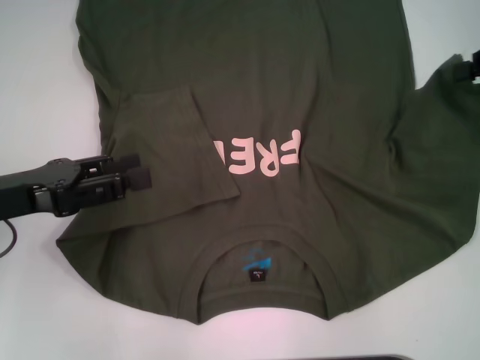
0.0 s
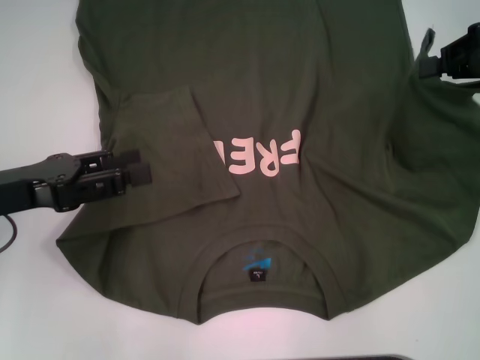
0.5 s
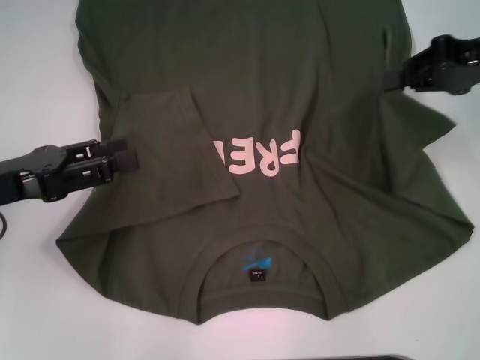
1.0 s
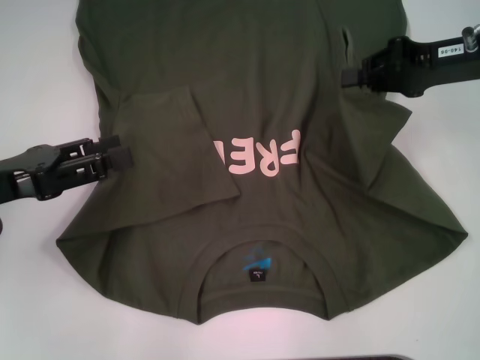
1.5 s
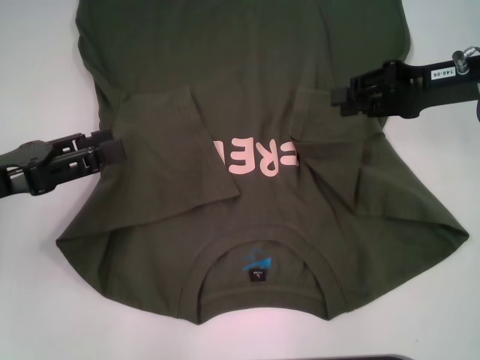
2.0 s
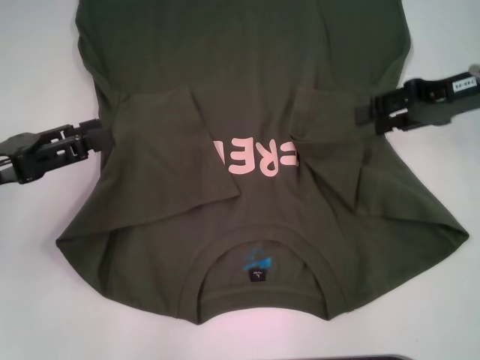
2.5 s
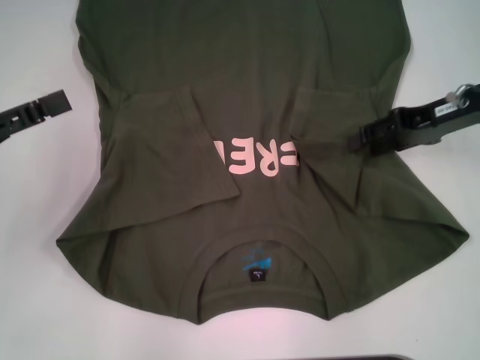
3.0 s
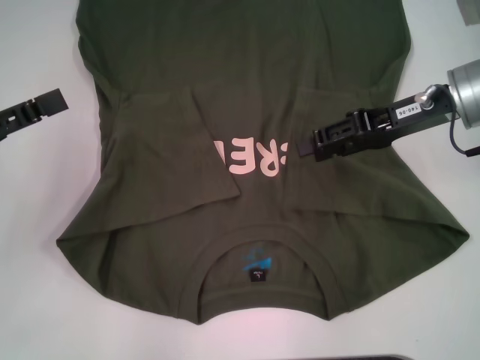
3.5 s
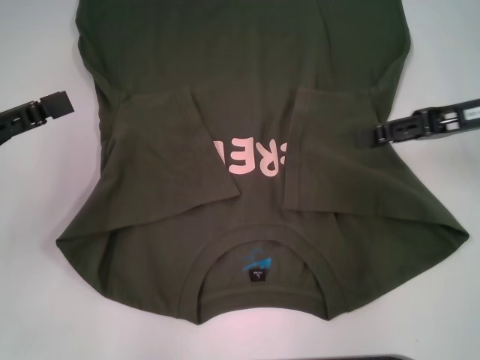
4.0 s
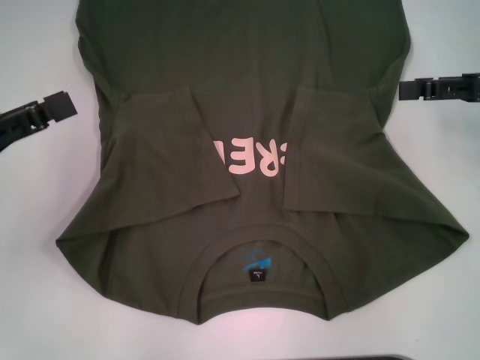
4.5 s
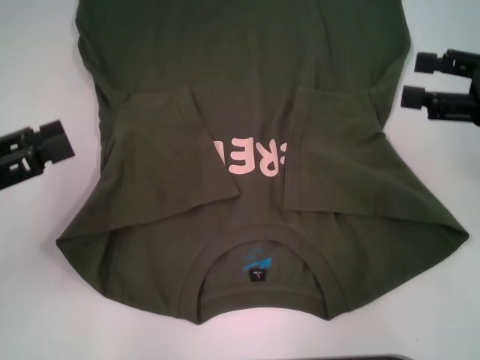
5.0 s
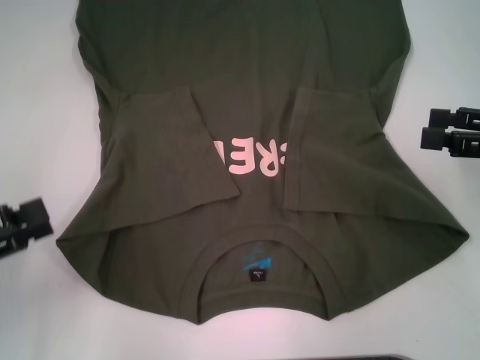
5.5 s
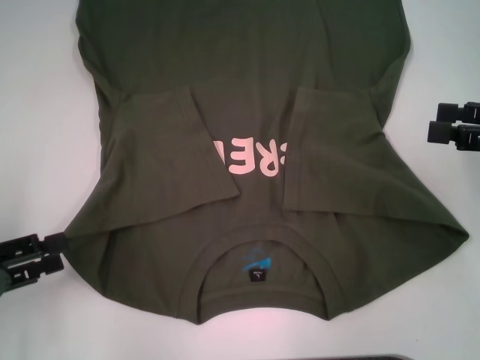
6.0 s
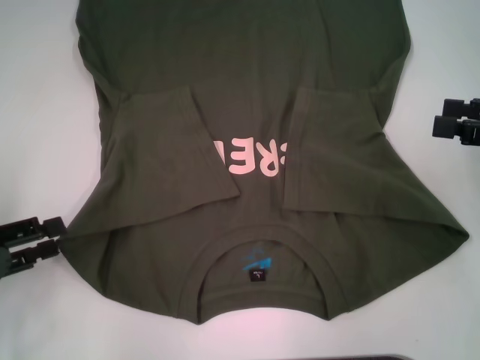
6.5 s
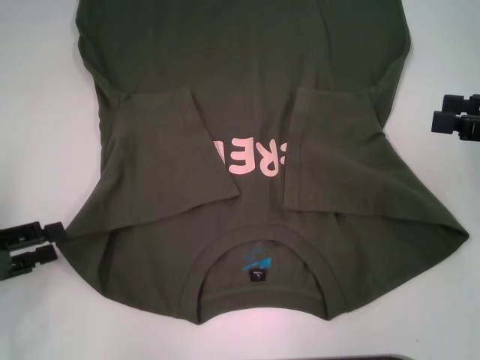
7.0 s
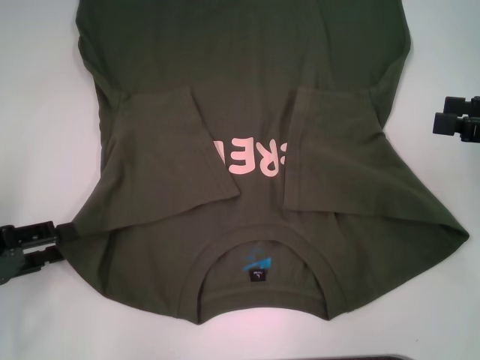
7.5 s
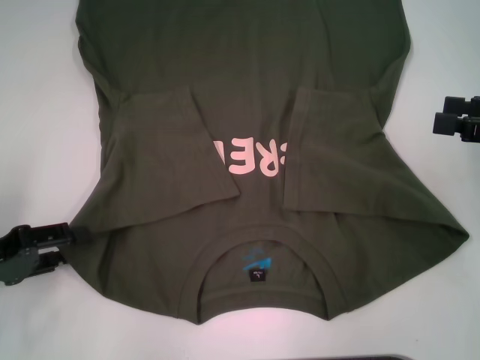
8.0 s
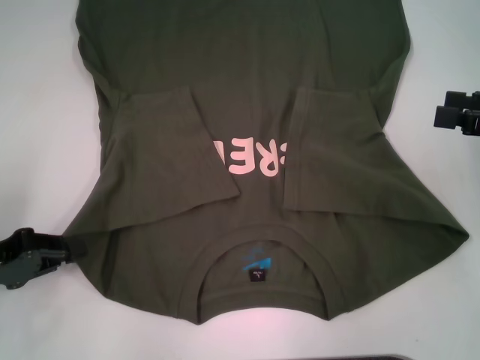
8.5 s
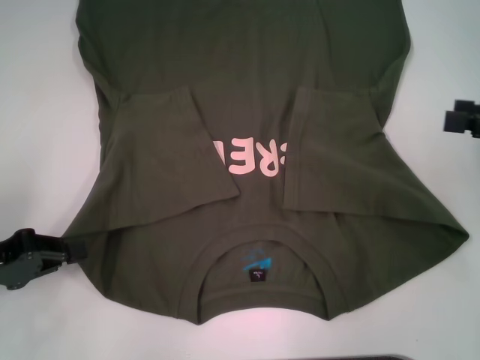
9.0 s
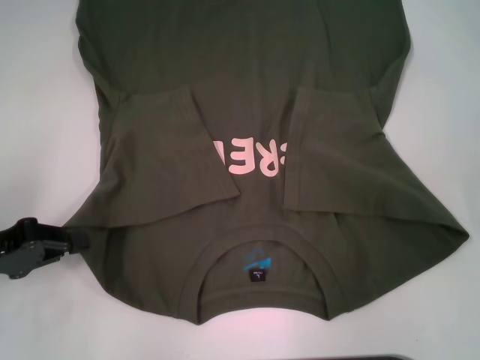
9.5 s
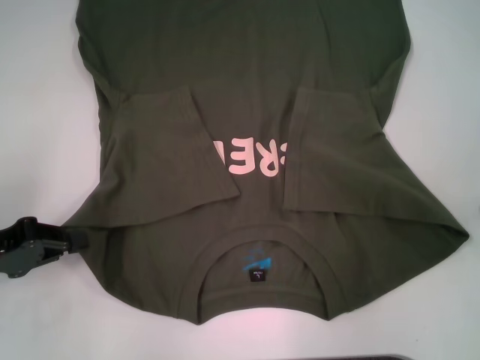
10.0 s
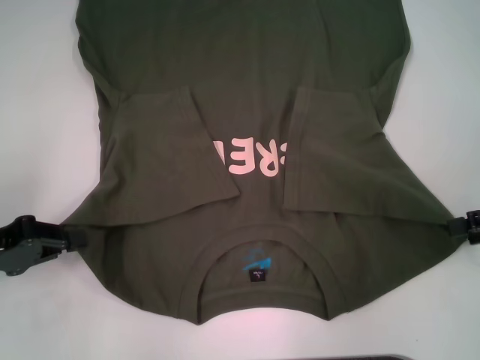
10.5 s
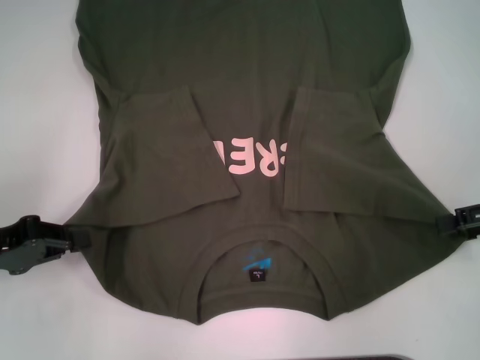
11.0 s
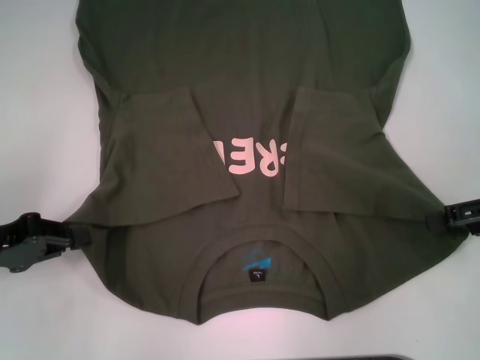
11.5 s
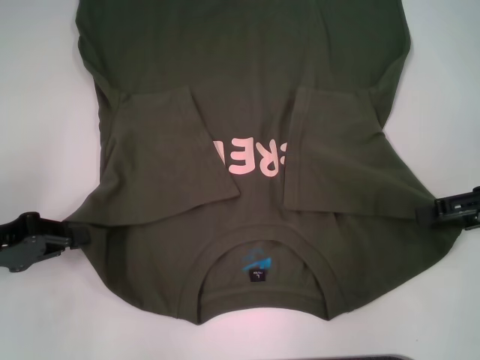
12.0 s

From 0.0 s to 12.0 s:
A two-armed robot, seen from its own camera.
Step, from 0.0 s to 6.5 s: Fold the bottom right sleeve with your right hand.
Step, from 7.0 s to 9.5 s: Grab the bottom left corner with your left hand.
From 0.0 s to 2.0 s: The right gripper shifts roughly 10 cm to the left and downward.
From 2.0 s to 4.0 s: The right gripper opens its fingers.
From 4.0 s to 6.0 s: The right gripper travels backward and to the right by some 10 cm. The left gripper heads backward and downward, covering about 10 cm.
From 6.0 s to 8.0 s: There are only small adjustments of the grippers.
From 8.0 s to 10.0 s: The left gripper closes its fingers.
From 10.0 s to 12.0 s: The right gripper moves some 5 cm.

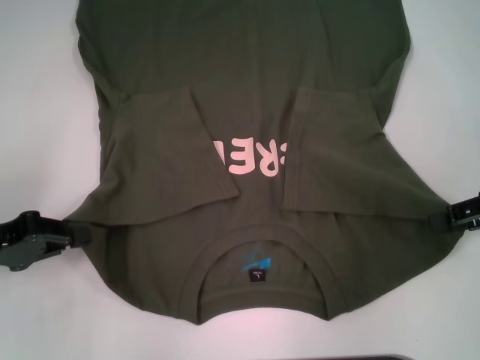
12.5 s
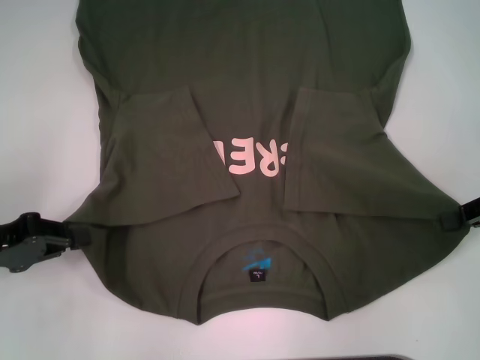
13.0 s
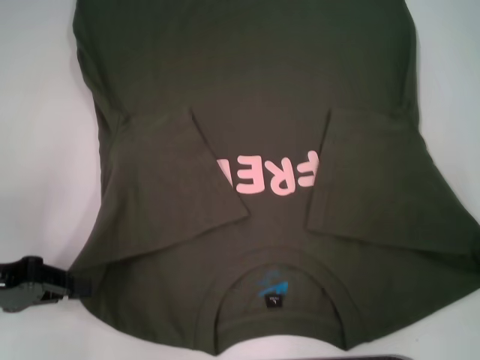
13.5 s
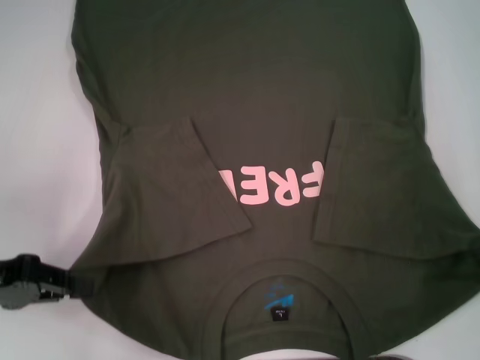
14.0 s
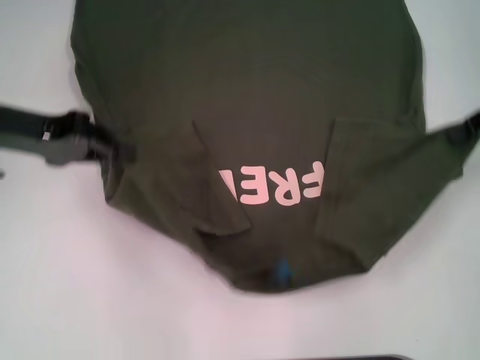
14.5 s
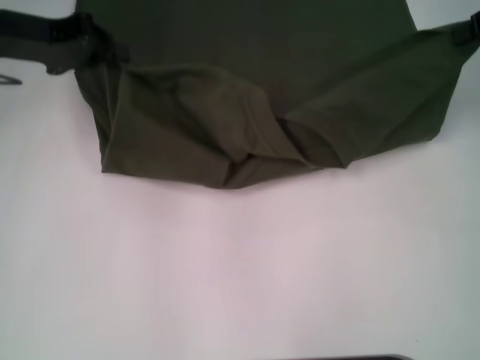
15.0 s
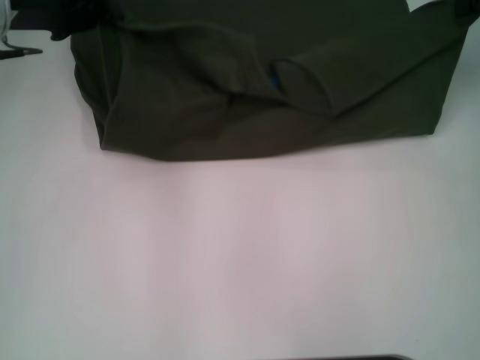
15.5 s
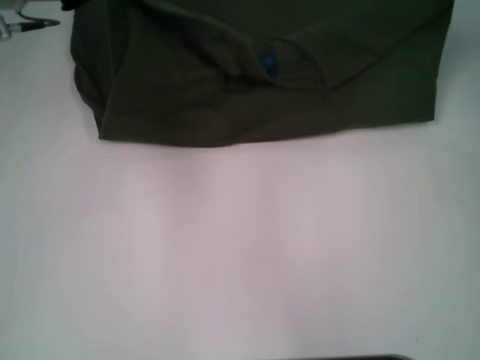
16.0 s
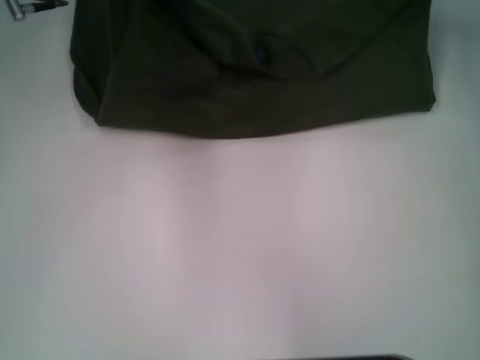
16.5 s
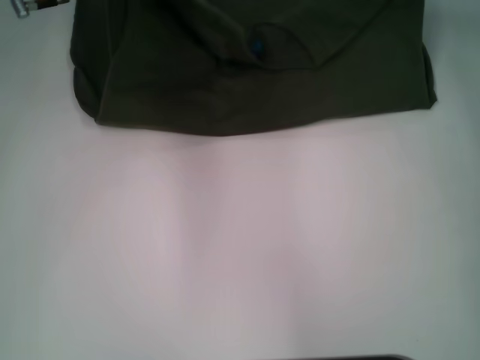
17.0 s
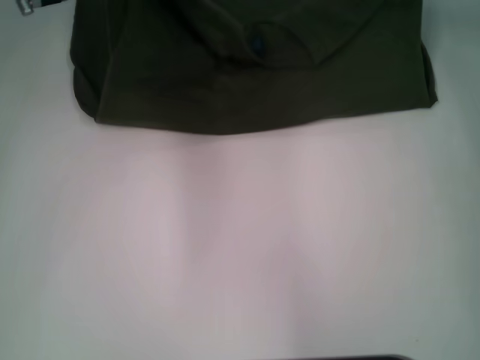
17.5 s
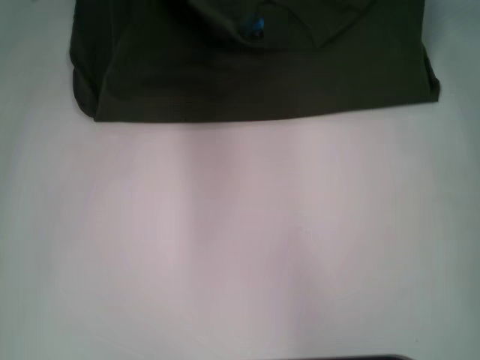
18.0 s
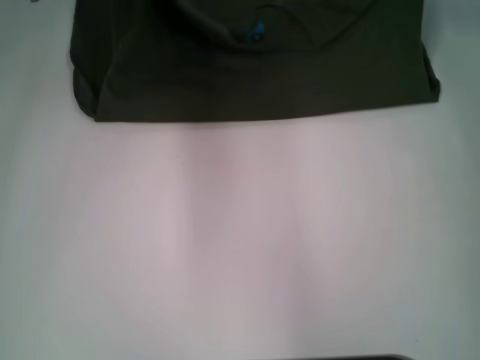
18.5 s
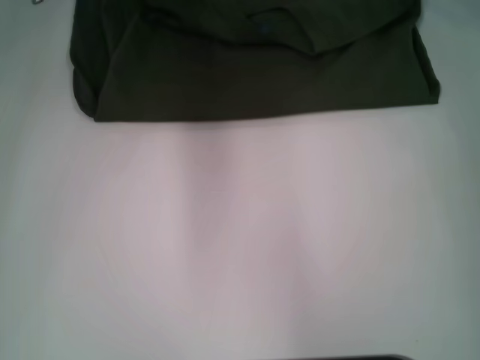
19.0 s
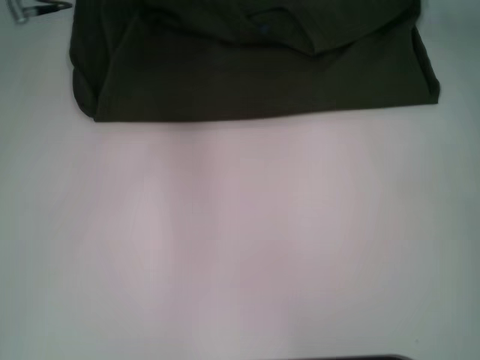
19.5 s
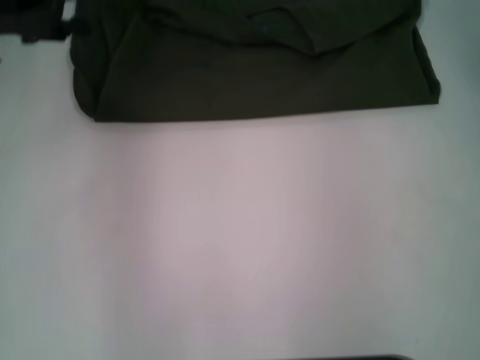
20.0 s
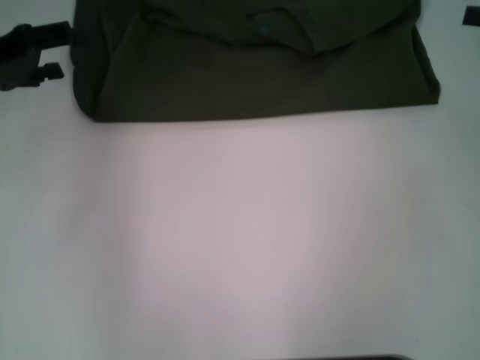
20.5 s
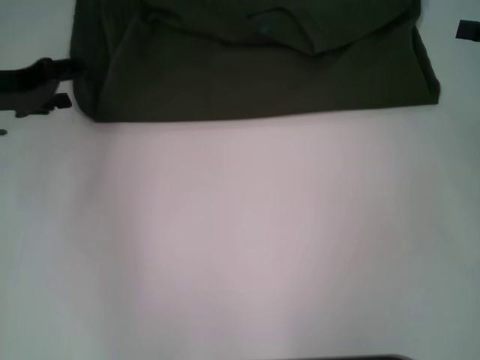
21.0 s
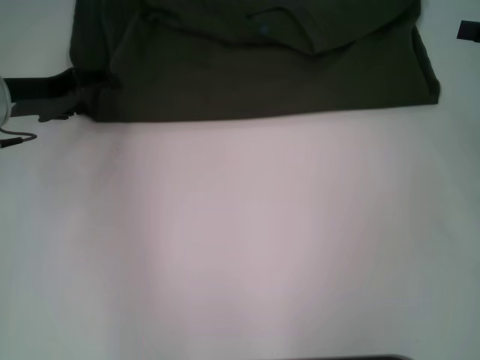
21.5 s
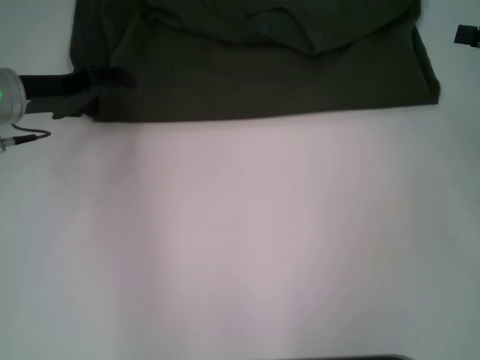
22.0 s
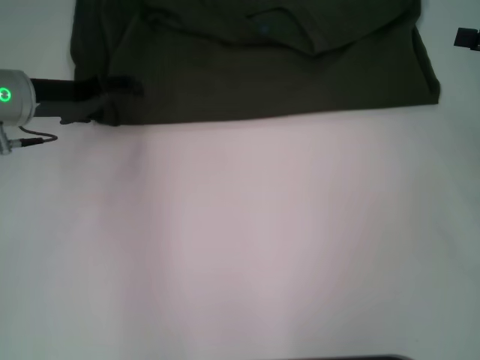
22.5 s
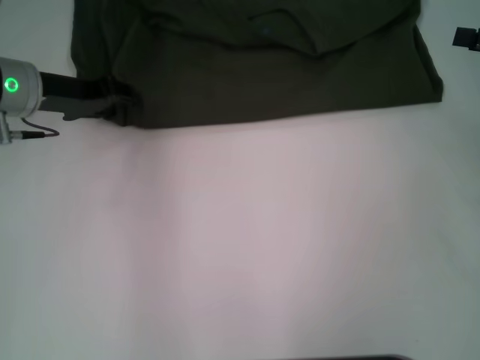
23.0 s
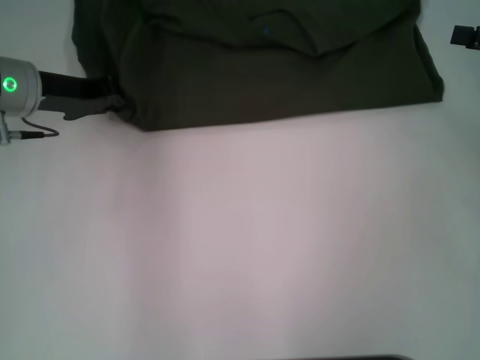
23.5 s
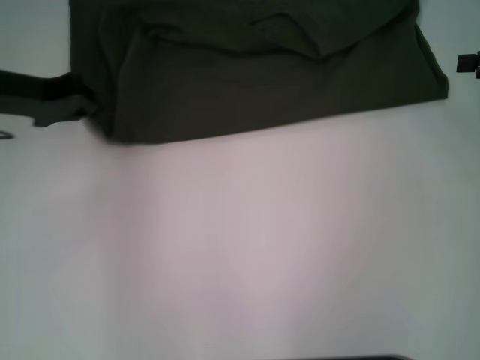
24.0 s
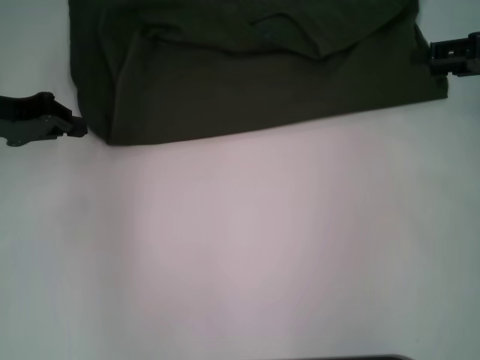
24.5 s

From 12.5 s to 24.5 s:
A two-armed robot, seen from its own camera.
Step, from 13.0 s to 20.0 s: Fold the clothes with your left hand.
Step, from 13.0 s to 20.0 s: Fold the clothes with your right hand.
From 12.5 s to 14.5 s: The left gripper goes some 15 cm forward, upward and to the right. Meanwhile the right gripper is displaced upward and forward by roughly 10 cm, and closes up.
From 14.5 s to 16.5 s: The right gripper shifts approximately 10 cm forward; the left gripper travels forward and to the right by roughly 15 cm.
From 16.5 s to 18.5 s: The grippers stay close to where they were, moving slightly.
From 18.5 s to 20.5 s: The right gripper goes about 20 cm backward and to the right, and opens, while the left gripper shifts about 15 cm backward and to the left, and opens up.
From 20.5 s to 22.5 s: The left gripper travels to the right by approximately 5 cm.
From 22.5 s to 24.5 s: The left gripper heads to the left, covering approximately 5 cm, and closes. Meanwhile the right gripper changes place by roughly 5 cm.

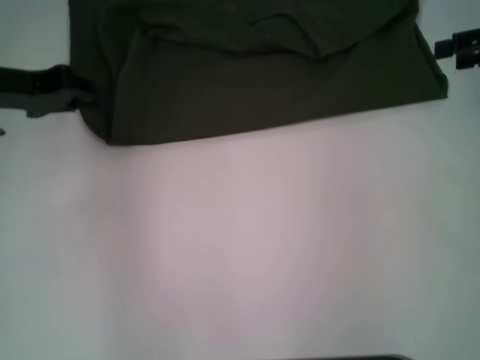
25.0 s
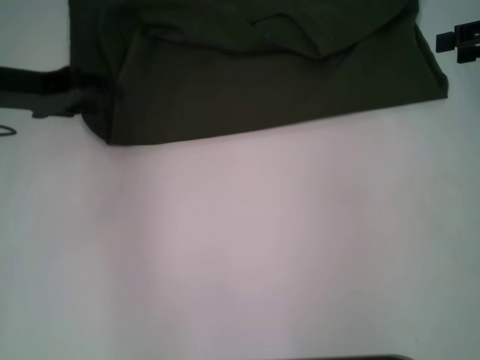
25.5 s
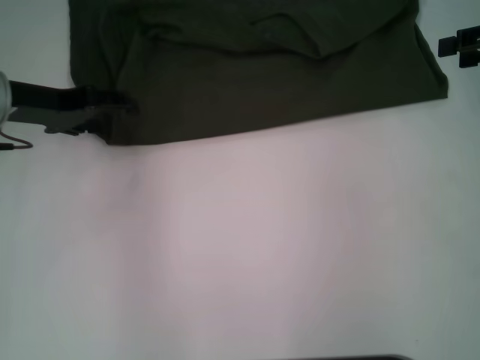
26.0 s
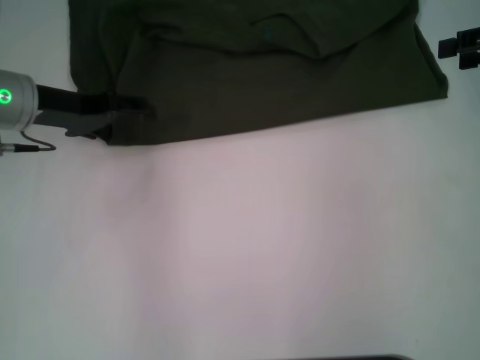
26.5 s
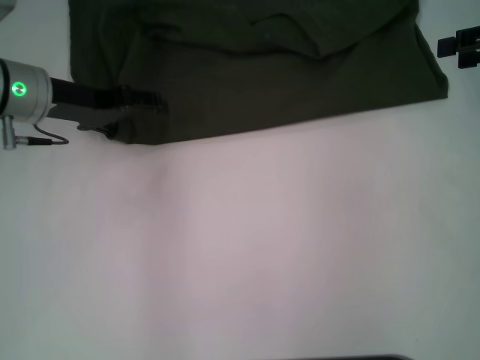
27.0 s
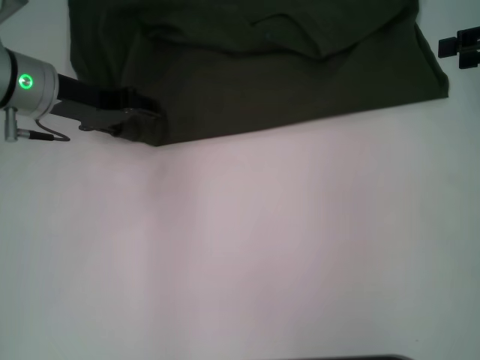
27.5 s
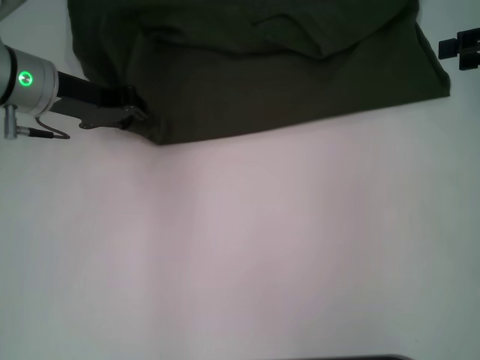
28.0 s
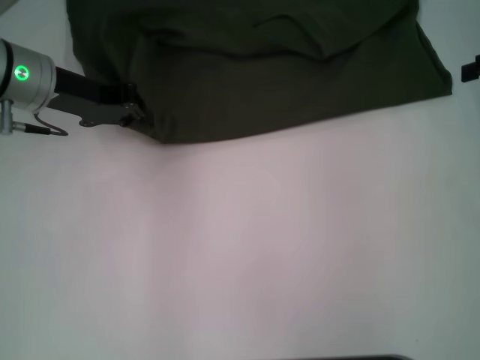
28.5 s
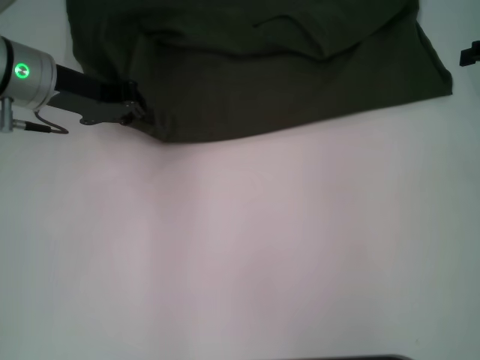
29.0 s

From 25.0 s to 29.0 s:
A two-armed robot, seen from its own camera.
From 25.0 s to 27.0 s: The left gripper travels to the right by approximately 5 cm, and opens up.
From 27.0 s to 29.0 s: The left gripper closes.
